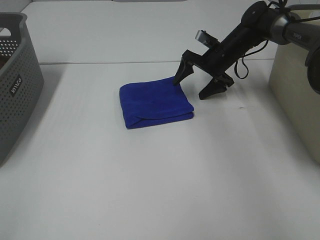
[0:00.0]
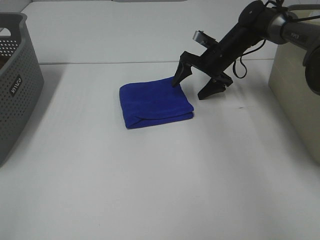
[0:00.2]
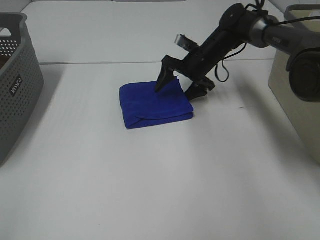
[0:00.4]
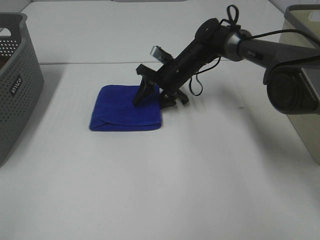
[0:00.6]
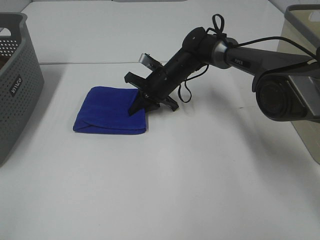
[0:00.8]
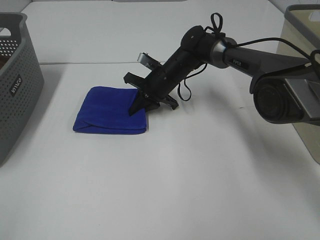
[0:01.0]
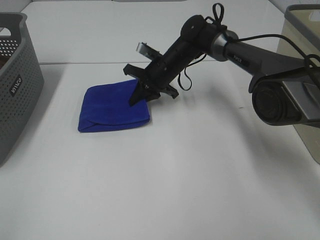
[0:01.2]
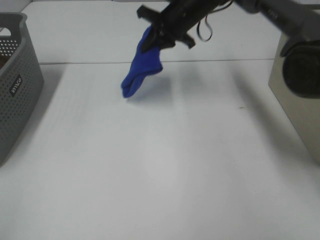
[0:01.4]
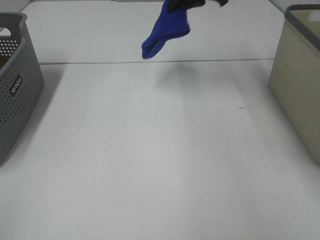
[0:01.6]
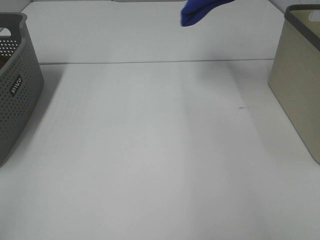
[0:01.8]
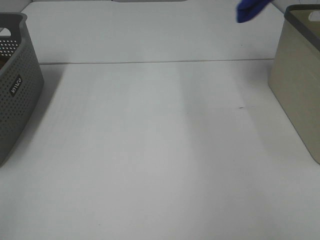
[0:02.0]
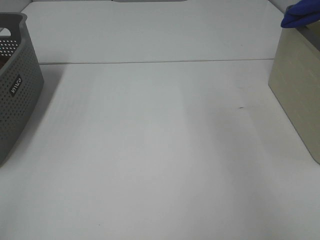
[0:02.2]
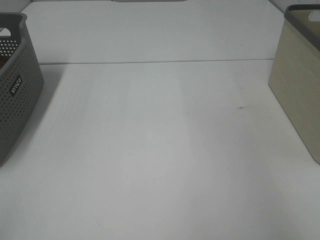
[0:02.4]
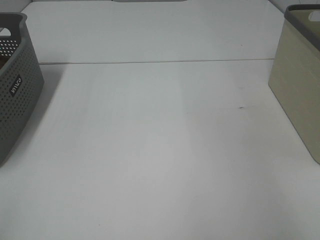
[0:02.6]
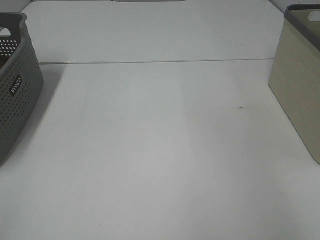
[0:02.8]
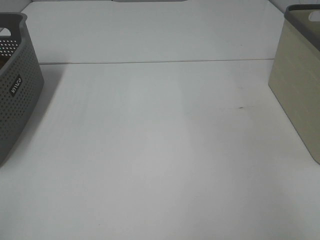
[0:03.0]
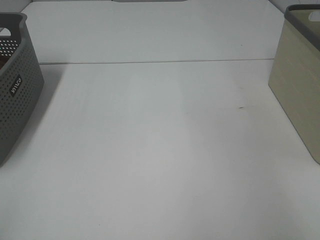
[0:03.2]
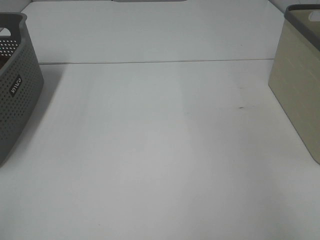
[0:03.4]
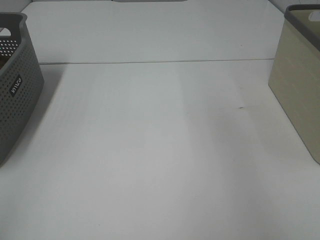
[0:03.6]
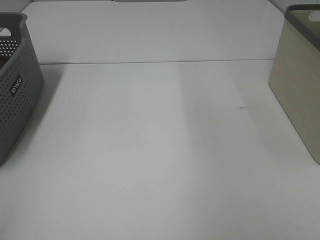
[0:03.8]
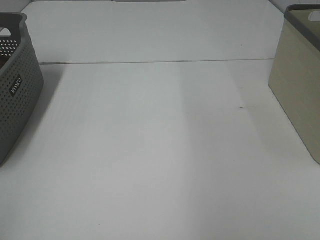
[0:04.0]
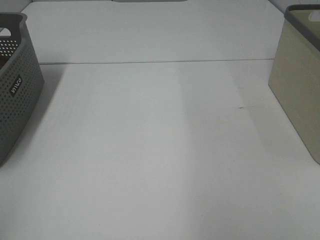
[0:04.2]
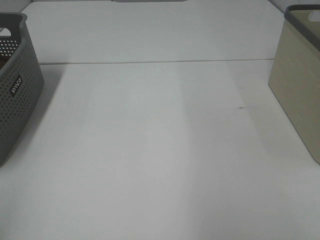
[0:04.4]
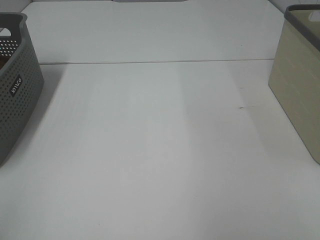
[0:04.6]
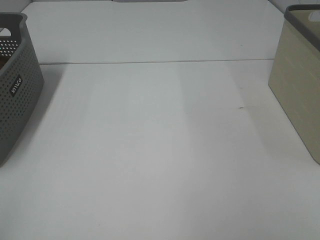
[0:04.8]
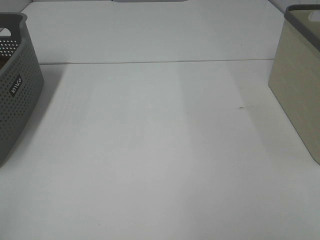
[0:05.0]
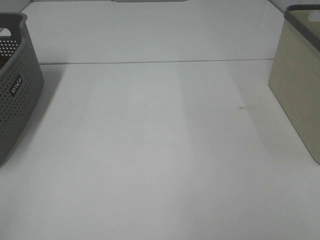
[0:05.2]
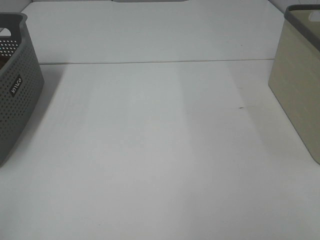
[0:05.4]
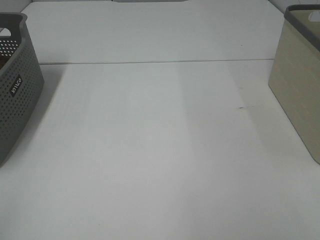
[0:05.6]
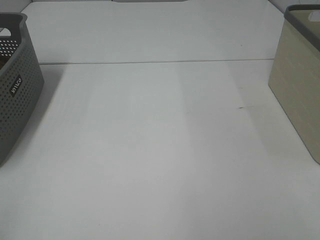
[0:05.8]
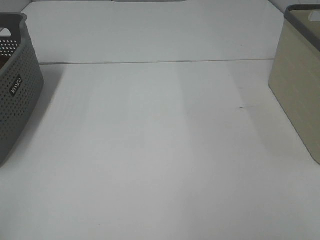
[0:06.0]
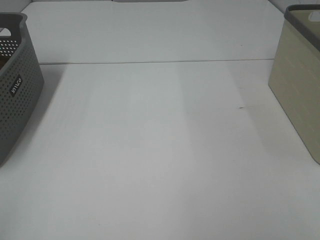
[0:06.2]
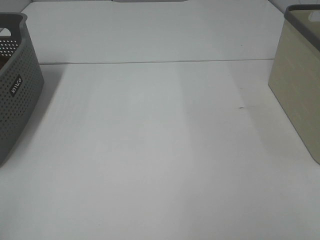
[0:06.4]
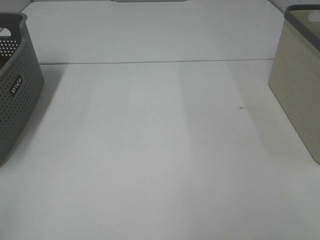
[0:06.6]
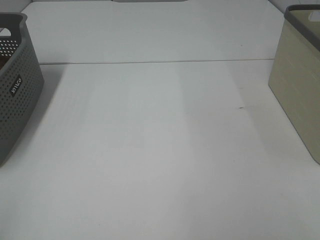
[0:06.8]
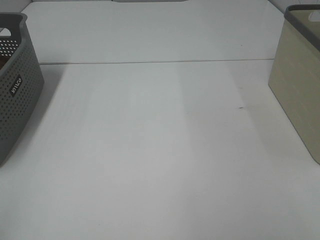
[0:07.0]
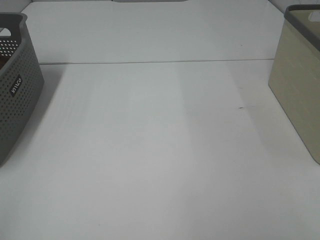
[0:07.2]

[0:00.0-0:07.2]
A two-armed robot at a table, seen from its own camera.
Step, 0:01.0 to 0:03.2: Right hand: place the blue towel in right basket.
0:00.0 to 0:01.4: The right gripper shifts about 15 cm upward and to the left, and closes its fingers.
0:01.4 to 0:02.8: The right gripper is displaced to the right by approximately 35 cm.
0:05.8 to 0:07.2: Neither gripper changes place.

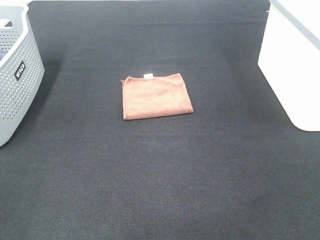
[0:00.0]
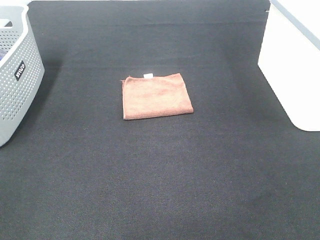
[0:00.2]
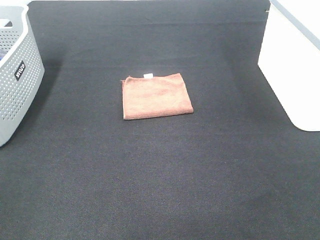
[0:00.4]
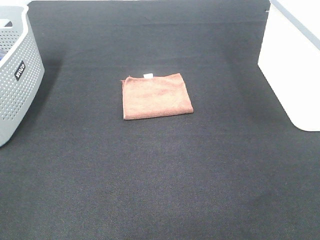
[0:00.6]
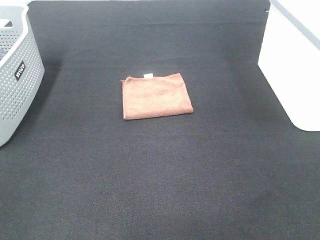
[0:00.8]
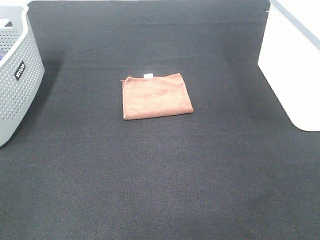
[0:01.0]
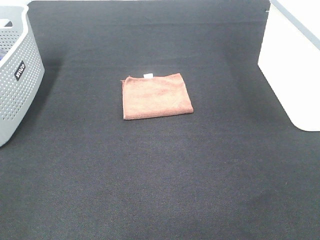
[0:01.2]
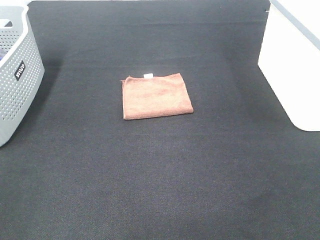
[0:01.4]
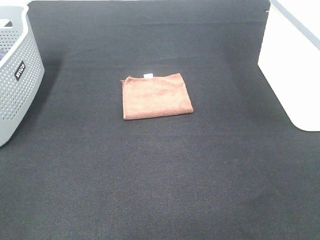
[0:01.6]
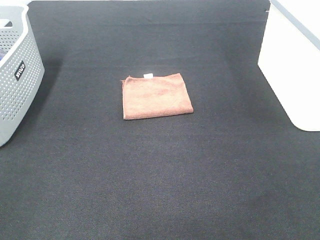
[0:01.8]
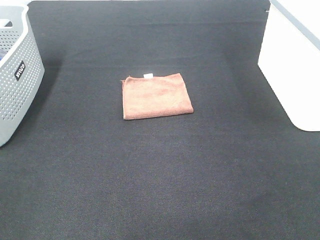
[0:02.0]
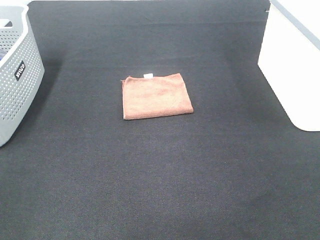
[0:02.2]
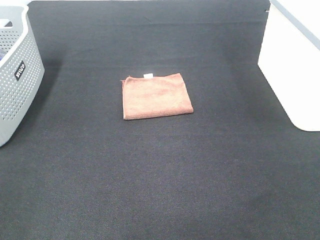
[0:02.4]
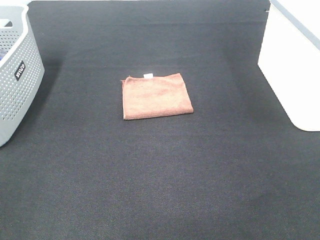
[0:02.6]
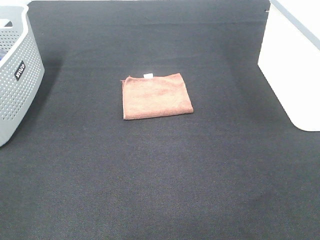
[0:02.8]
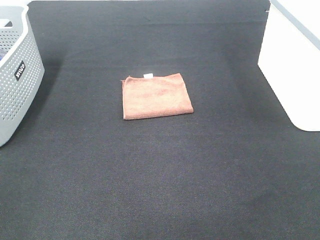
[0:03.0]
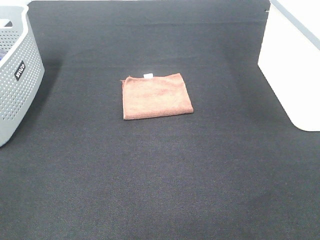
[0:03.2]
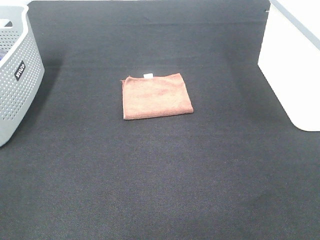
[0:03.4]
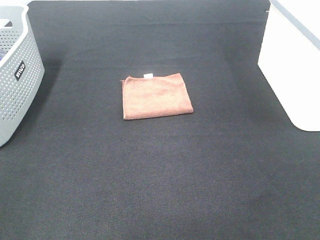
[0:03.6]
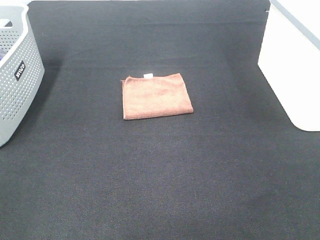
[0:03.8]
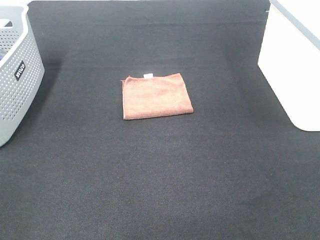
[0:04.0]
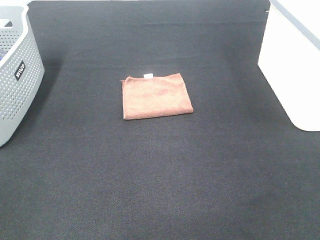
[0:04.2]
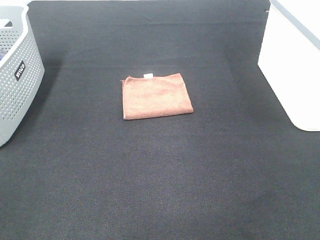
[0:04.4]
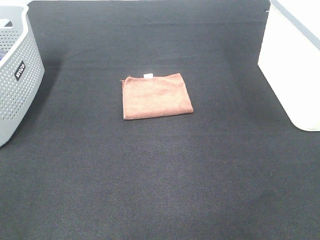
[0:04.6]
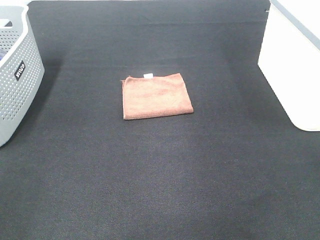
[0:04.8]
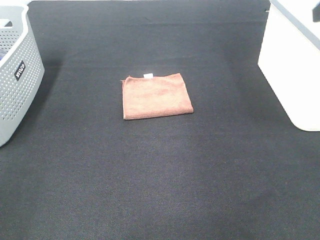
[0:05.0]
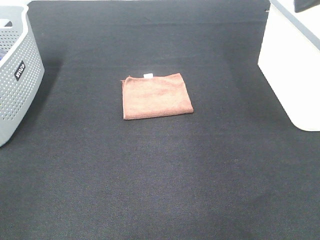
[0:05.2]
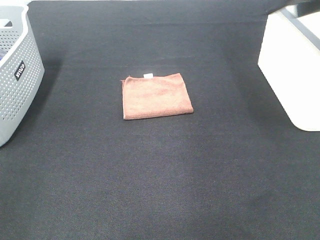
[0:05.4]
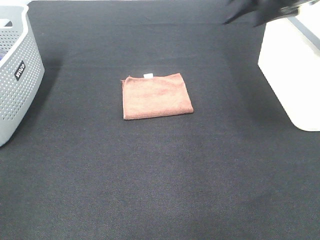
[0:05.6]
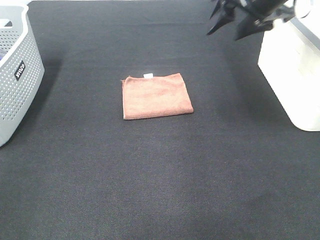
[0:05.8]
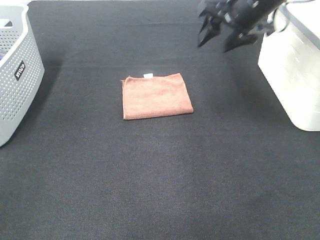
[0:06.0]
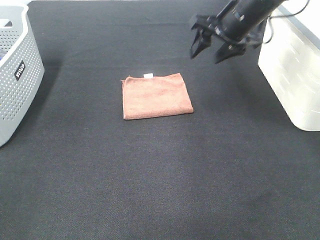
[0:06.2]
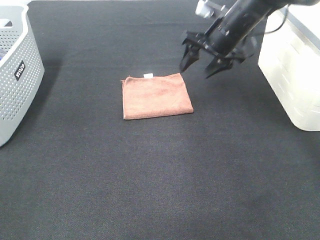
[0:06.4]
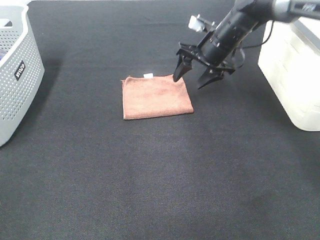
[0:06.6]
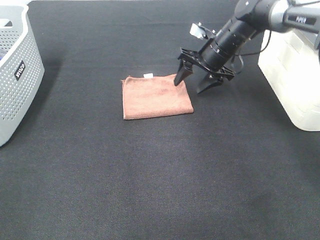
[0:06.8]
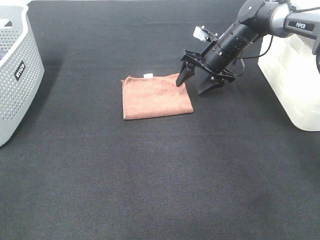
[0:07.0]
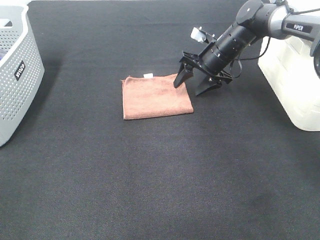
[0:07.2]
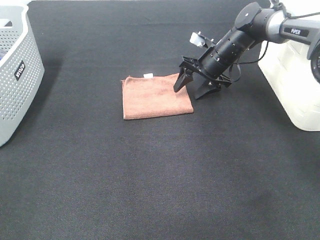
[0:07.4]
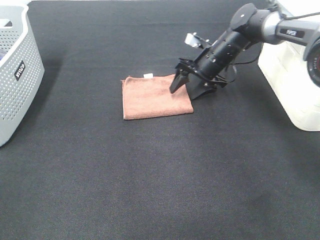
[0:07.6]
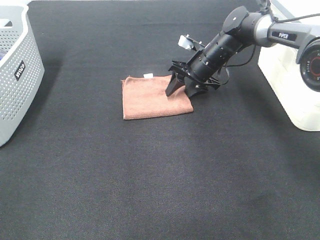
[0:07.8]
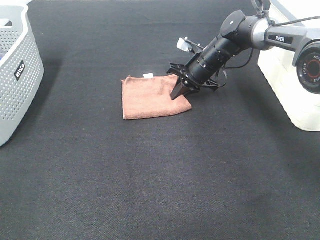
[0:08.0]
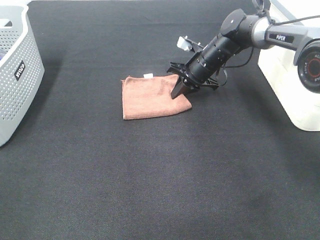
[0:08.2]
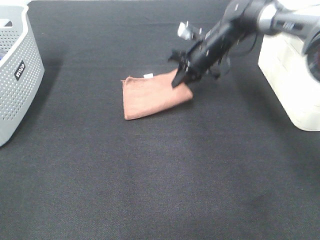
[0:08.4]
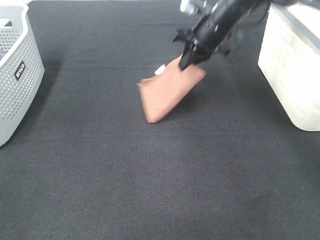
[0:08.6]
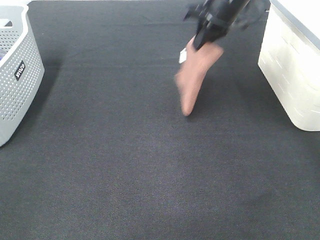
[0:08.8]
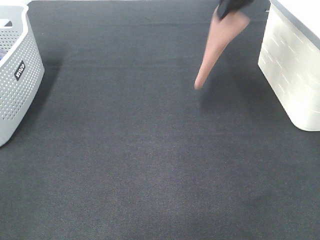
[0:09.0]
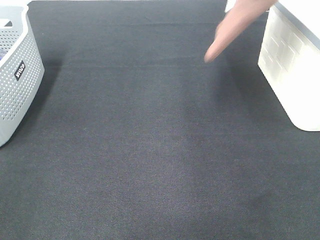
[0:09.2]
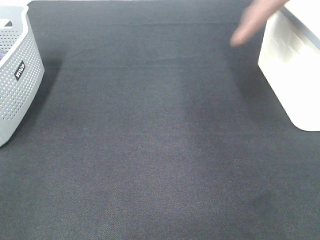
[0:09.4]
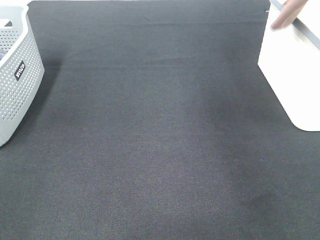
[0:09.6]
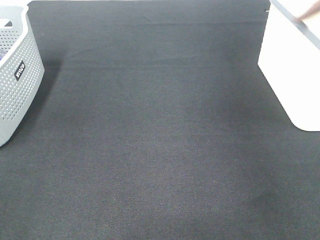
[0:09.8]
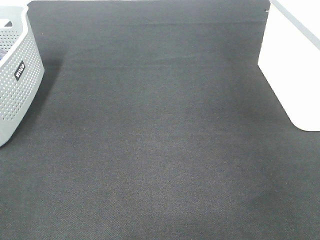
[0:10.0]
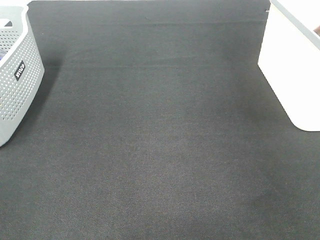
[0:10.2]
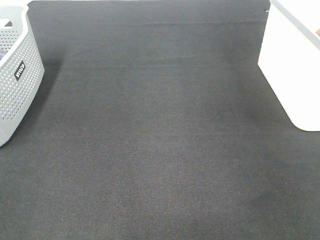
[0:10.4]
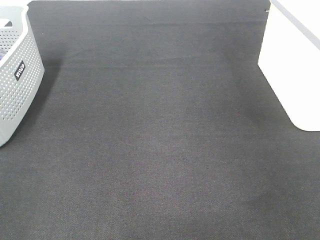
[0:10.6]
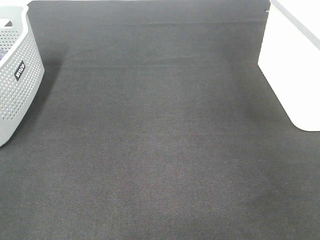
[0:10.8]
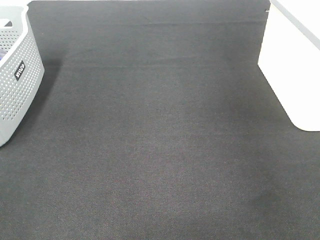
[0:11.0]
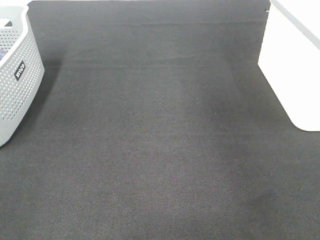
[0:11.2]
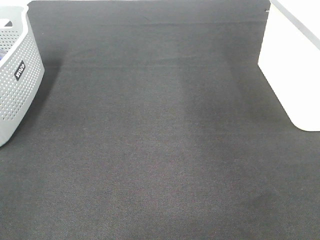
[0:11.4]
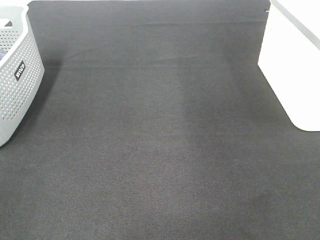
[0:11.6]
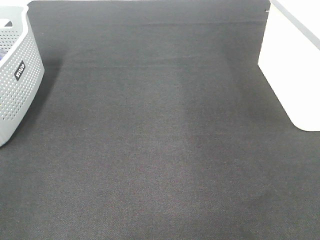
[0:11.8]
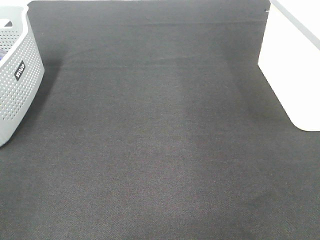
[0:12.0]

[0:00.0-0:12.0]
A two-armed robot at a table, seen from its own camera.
Step, 0:00.0 to 0:08.0: Right hand: grab the folded brown towel.
Step, 0:08.2 to 0:10.8: Right hand: place the brown towel in right basket.
0:00.0 to 0:03.0: Neither gripper changes place.
0:04.4 to 0:06.0: The right gripper is displaced forward by some 35 cm.
0:06.0 to 0:07.6: The right gripper is displaced downward and forward by roughly 15 cm.
0:07.6 to 0:09.0: The right gripper heads upward, covering approximately 25 cm, and closes.
0:09.0 to 0:10.4: The right gripper moves to the right, approximately 25 cm.

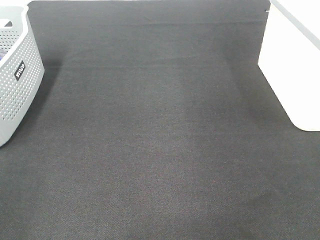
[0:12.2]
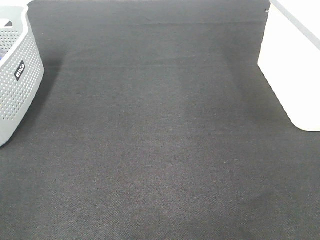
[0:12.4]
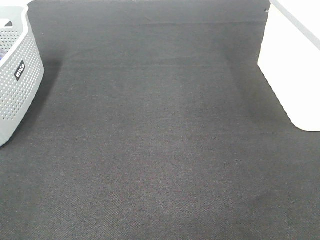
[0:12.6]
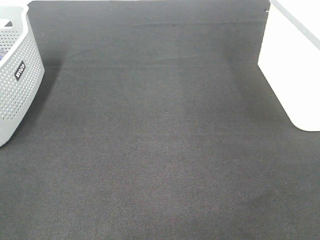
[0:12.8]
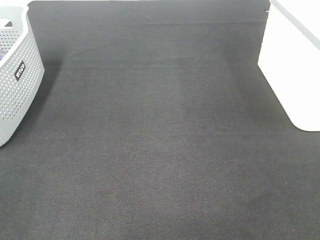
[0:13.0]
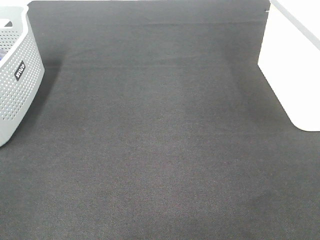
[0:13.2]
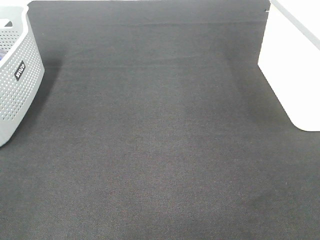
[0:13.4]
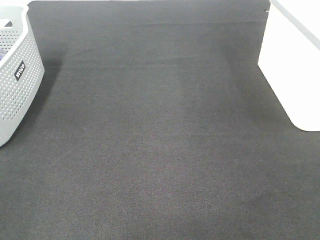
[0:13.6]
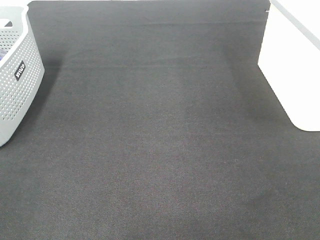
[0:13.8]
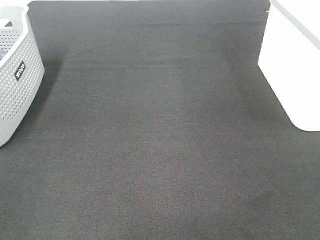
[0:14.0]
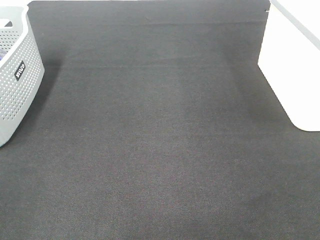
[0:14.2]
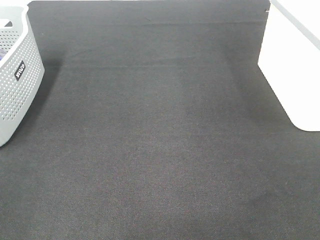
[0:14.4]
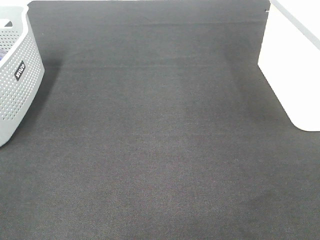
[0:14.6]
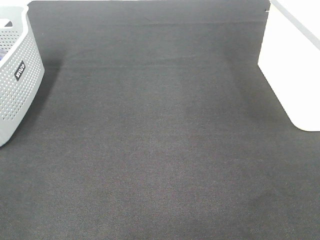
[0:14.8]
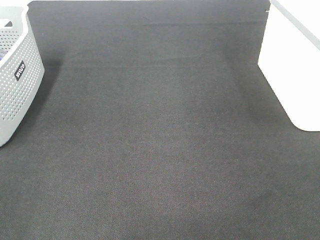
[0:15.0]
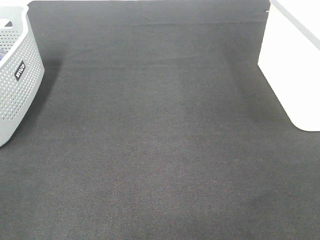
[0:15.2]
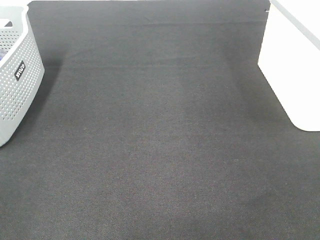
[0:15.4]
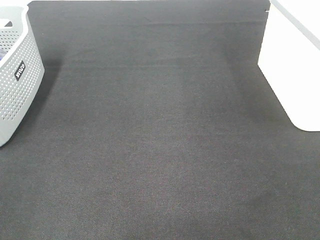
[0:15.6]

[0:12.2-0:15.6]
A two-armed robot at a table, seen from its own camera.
0:13.8 to 0:15.6: Neither gripper changes place.
